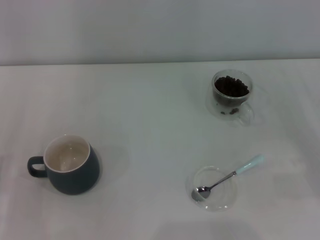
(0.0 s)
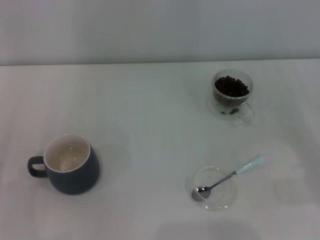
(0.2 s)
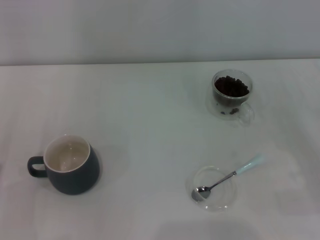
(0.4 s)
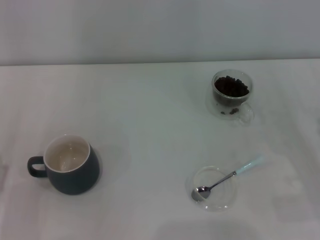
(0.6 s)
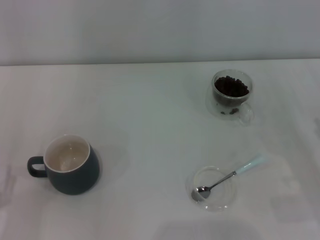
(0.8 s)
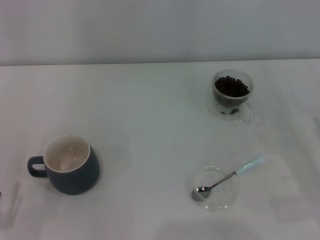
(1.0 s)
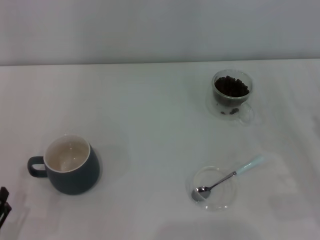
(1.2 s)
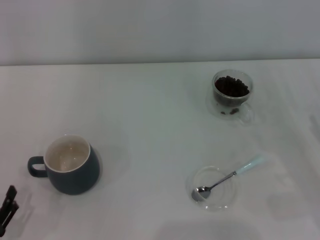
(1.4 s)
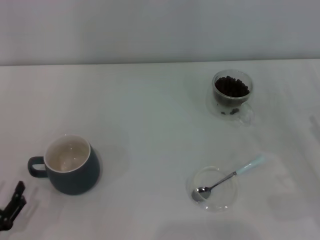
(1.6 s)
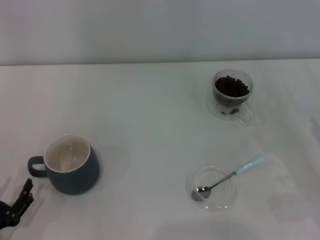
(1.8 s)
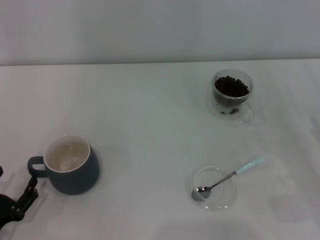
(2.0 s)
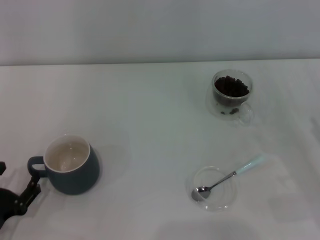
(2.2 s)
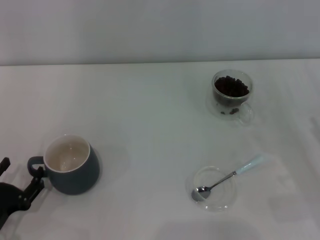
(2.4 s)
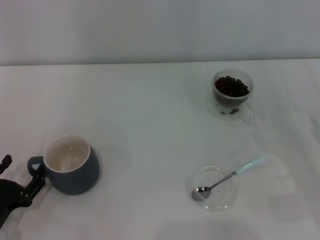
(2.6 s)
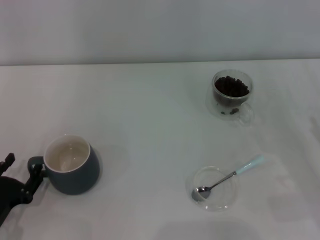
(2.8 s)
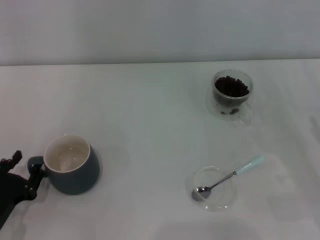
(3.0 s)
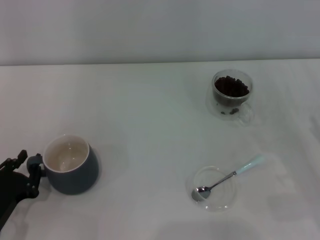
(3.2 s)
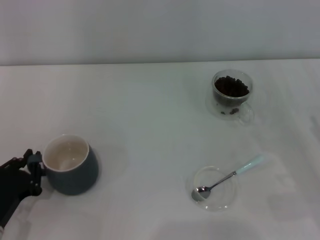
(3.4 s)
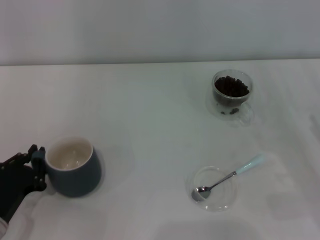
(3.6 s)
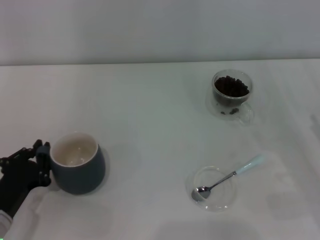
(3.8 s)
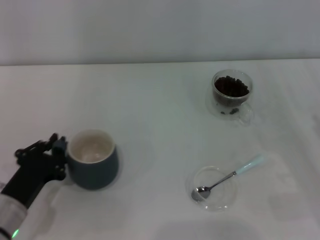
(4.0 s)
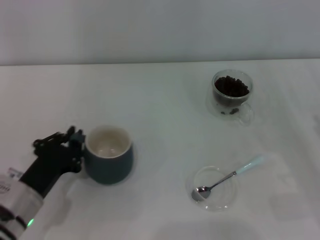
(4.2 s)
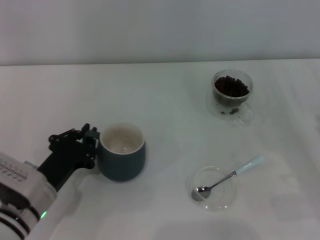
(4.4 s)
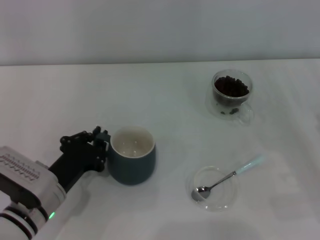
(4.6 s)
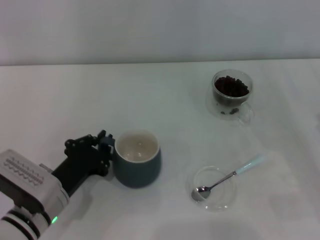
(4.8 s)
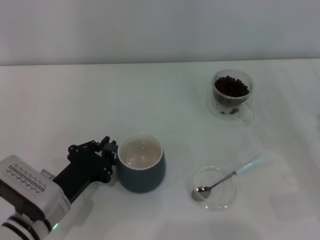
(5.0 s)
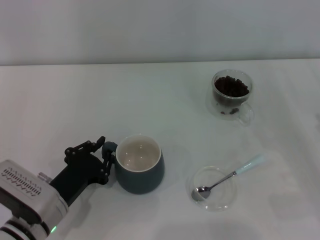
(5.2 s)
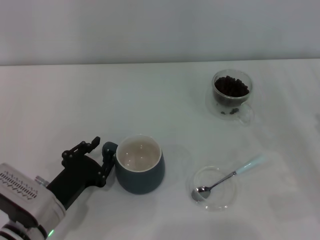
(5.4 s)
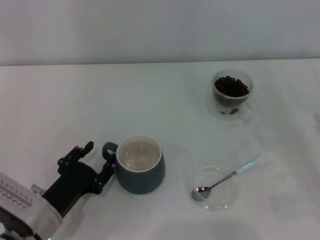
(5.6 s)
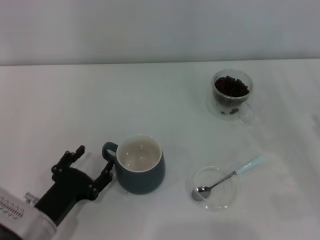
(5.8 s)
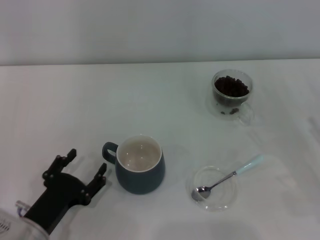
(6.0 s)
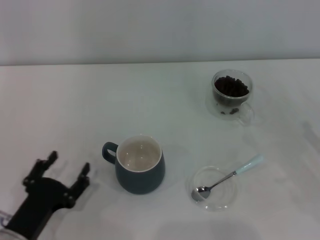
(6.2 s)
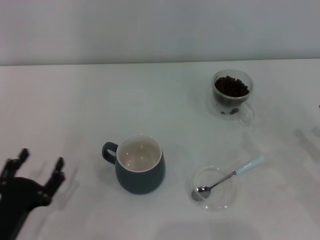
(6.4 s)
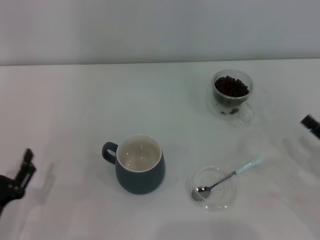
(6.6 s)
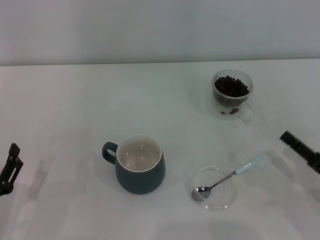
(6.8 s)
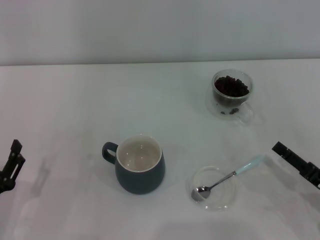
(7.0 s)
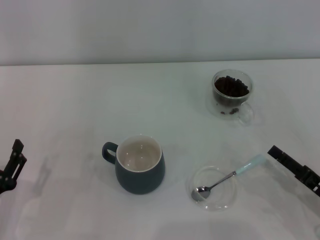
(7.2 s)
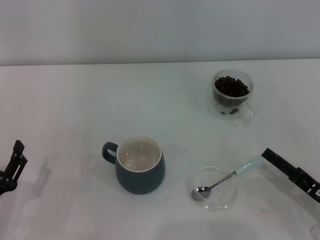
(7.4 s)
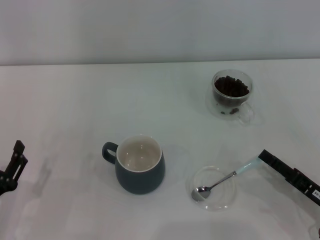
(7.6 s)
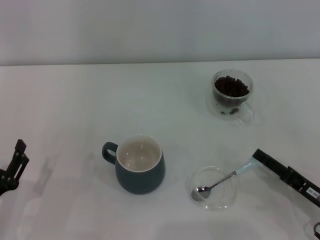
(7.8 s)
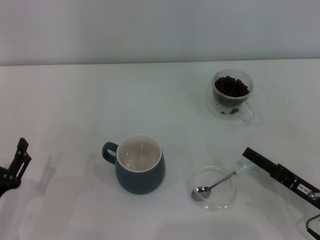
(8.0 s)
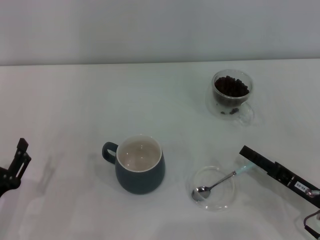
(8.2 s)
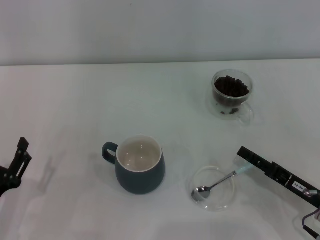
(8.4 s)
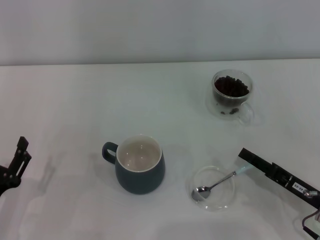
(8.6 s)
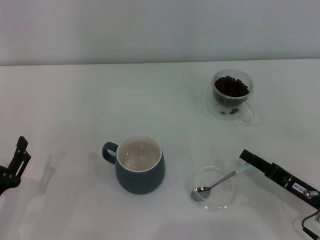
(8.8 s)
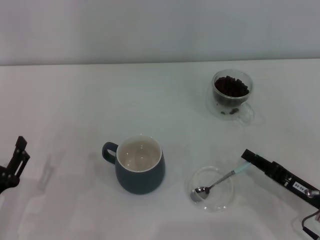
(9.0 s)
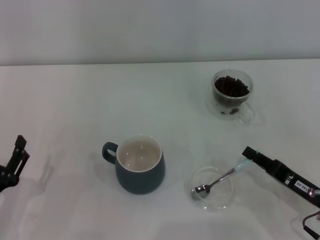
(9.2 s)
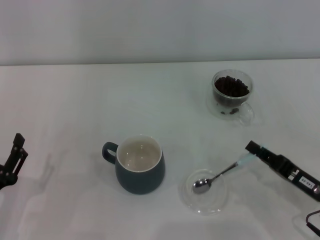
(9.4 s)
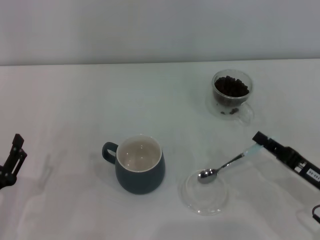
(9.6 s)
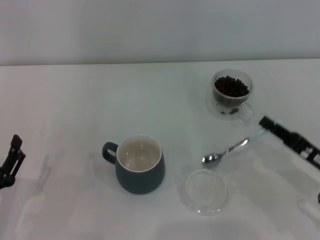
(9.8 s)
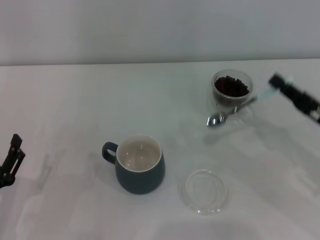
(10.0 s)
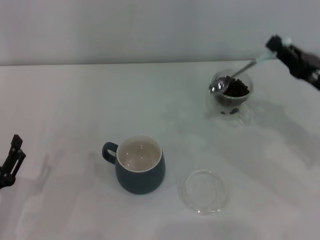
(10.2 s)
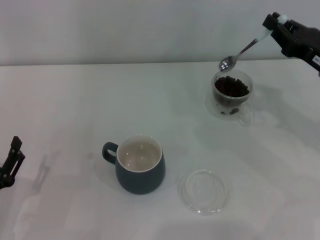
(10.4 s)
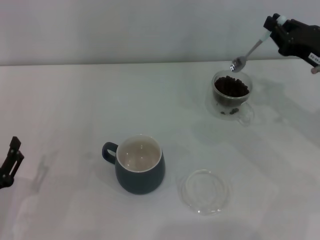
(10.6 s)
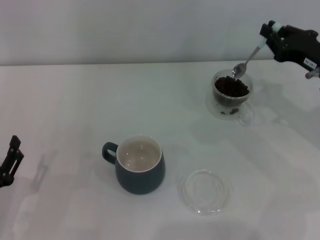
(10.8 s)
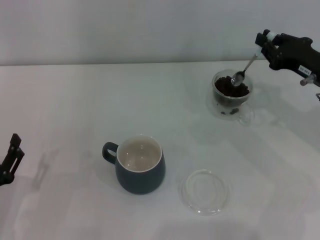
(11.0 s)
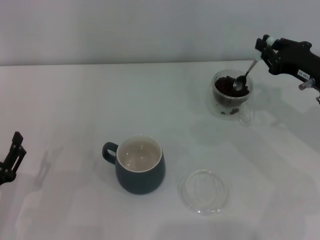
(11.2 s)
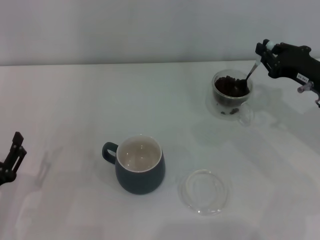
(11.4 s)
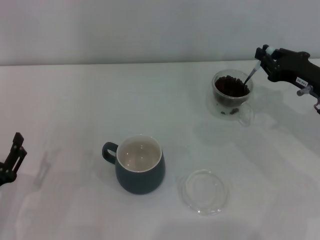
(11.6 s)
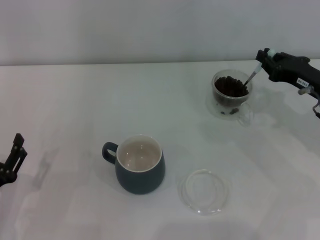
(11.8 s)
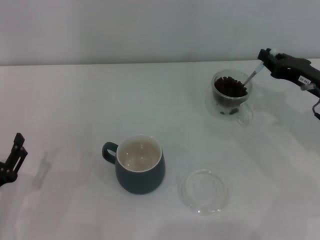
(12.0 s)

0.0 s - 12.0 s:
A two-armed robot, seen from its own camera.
Task of the whole recording: Use a blue spoon to take out the coffee beans from the glass and pour them into the gray cup.
Step, 0.0 s - 6.0 s: Move the cup to the center of view with the left gripper.
Step, 6.2 s - 9.6 s: Pick up the spoon with the right gripper.
0.0 s - 1.6 s: The left gripper travels backward by about 5 cm.
1.6 s - 3.0 s: The left gripper travels forward by roughly 5 cm.
3.0 s - 4.4 s: The left gripper goes some 10 cm to the right and forward, and closes.
4.4 s - 6.0 s: The left gripper heads backward, covering some 5 cm, and opens up.
6.0 s - 7.6 s: The right gripper goes approximately 10 cm to the left and downward. The left gripper is displaced to the left by roughly 5 cm.
7.6 s - 9.0 s: The right gripper closes its fingers.
9.0 s - 10.4 s: The right gripper travels forward and upward by roughly 20 cm, and closes.
10.4 s - 12.0 s: The grippers move only a little.

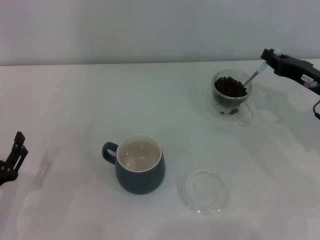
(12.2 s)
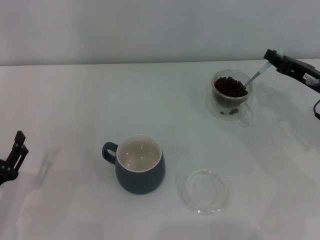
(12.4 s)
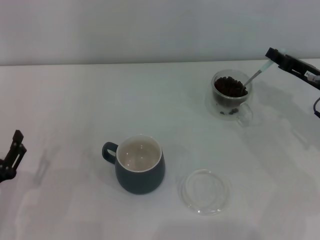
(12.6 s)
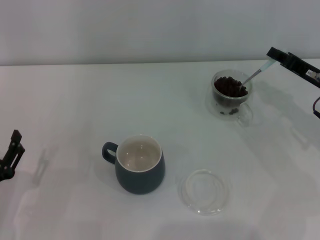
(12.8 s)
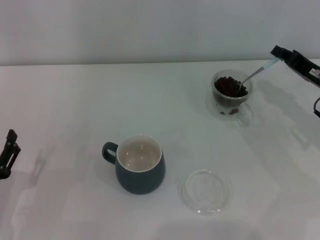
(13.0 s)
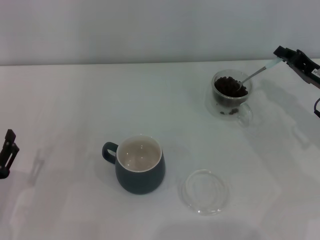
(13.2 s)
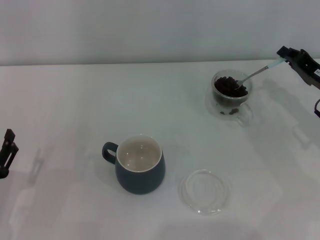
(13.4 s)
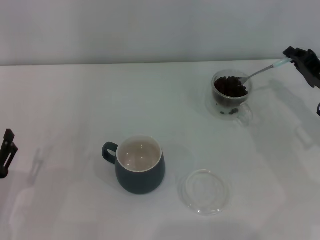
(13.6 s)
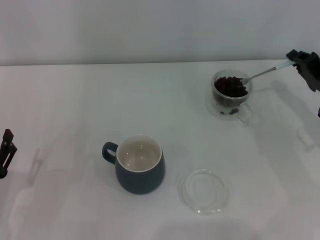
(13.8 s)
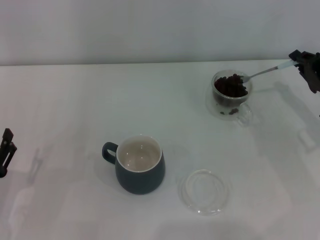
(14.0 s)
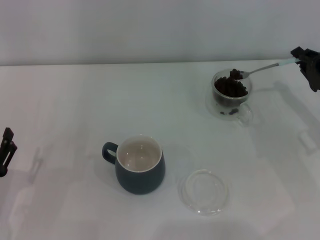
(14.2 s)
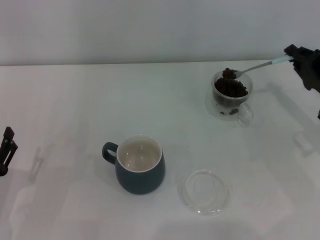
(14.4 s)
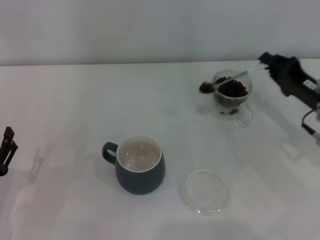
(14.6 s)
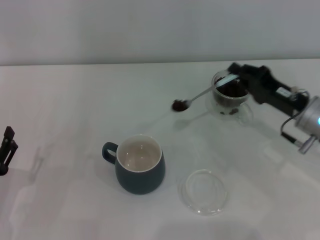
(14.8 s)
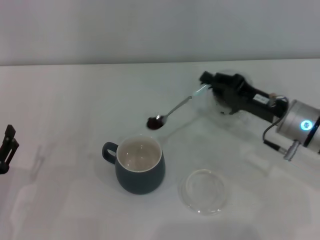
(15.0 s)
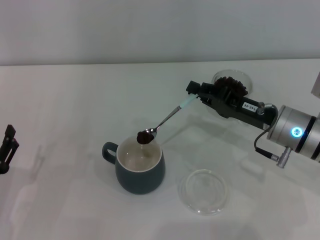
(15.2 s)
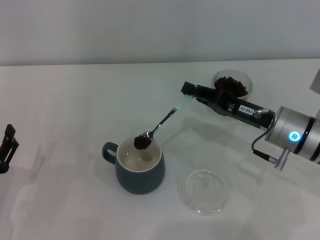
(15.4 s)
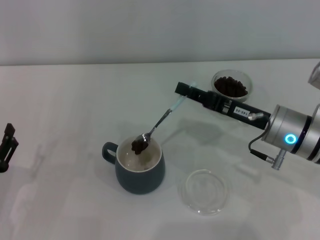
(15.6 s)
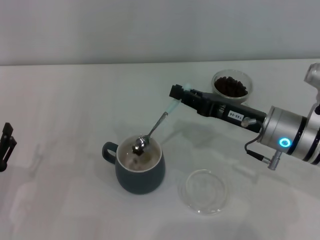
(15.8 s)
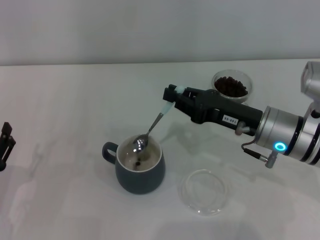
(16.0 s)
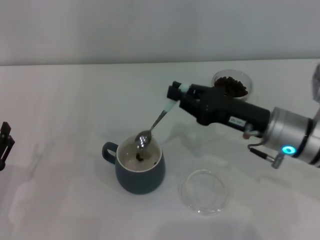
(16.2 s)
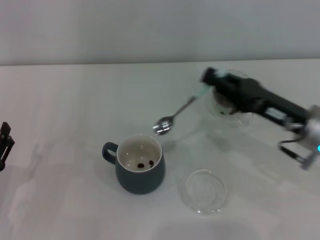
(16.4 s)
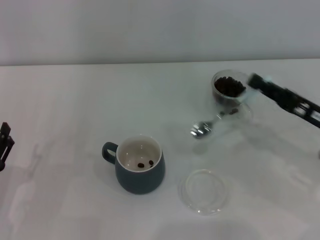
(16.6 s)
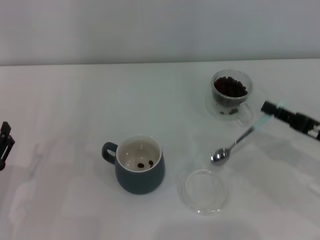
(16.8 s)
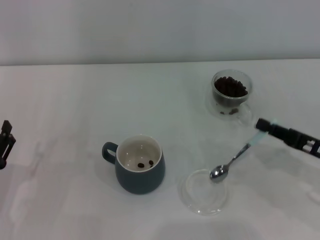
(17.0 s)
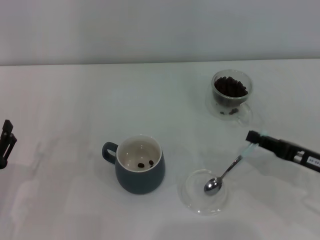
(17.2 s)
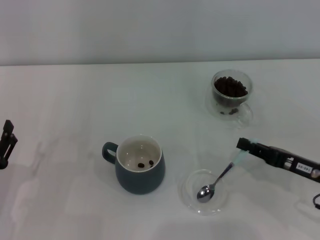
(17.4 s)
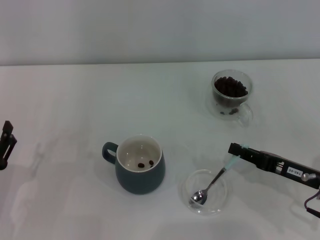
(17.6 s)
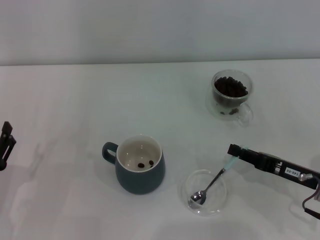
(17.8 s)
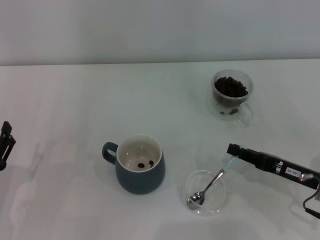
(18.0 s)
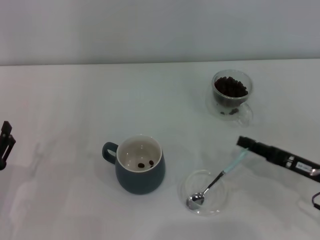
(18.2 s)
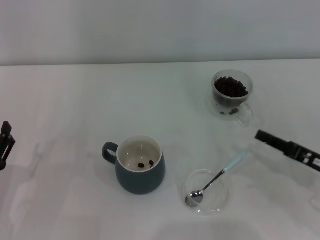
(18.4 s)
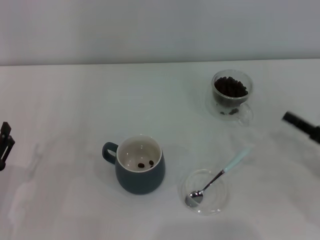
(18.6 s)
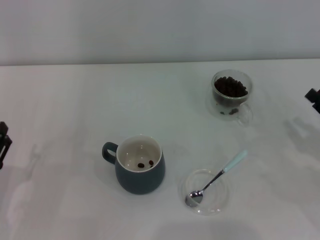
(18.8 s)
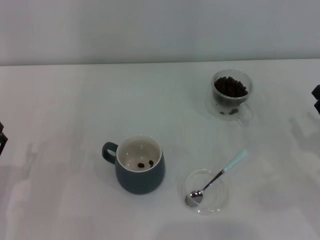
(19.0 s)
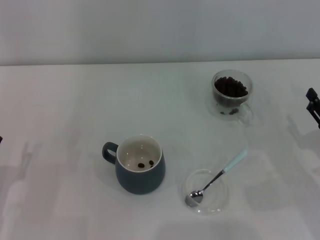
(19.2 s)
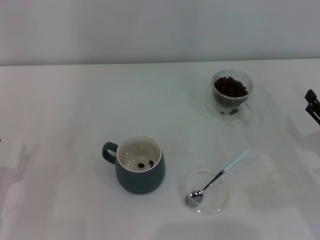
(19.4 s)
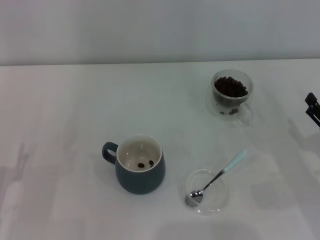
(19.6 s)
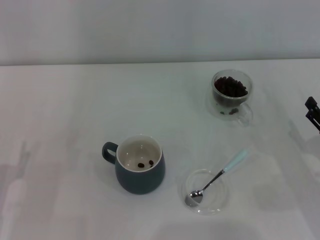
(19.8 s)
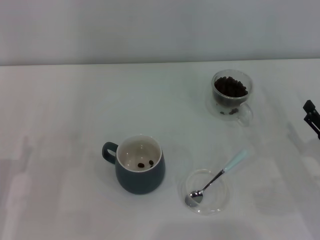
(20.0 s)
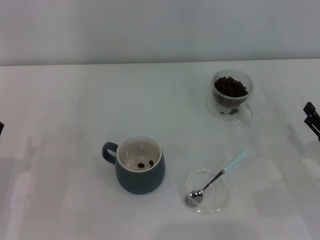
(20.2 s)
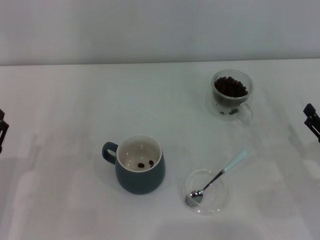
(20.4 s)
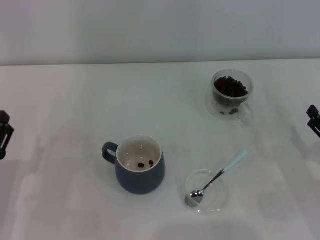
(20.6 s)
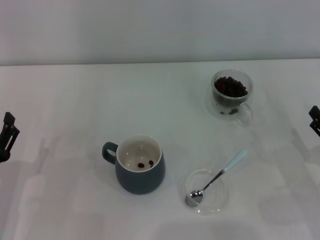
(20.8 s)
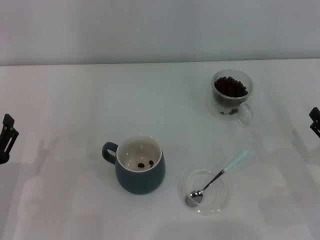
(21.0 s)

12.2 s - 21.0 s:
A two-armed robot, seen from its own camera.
Task of the whole recording: Use a blue spoon to take out the coffee beans from the glass and pour them into the gray cup.
Step, 12.2 s - 16.0 s: Scoop a spoonful of beans into the cup with the right gripper.
Step, 16.2 s - 18.2 s: Place the spoon back in its original place with the right gripper.
13.6 s - 15.2 s: The right gripper shifts some 10 cm to the left.
15.2 s - 16.6 s: The right gripper goes about 5 cm to the right.
16.6 s - 18.0 s: The right gripper heads downward, covering roughly 5 cm.
18.0 s - 19.6 s: The right gripper is displaced to the right by roughly 5 cm, and opens its fingers.
19.6 s - 21.0 s: There are only small adjustments of the grippers.
